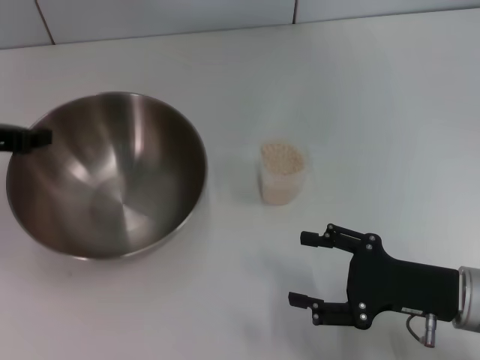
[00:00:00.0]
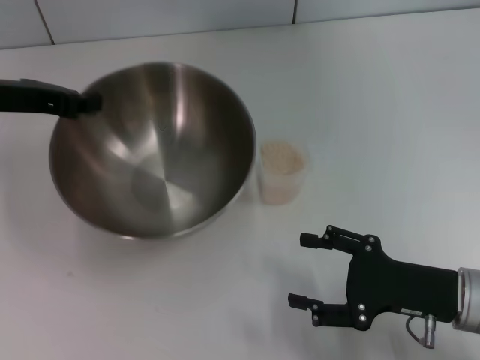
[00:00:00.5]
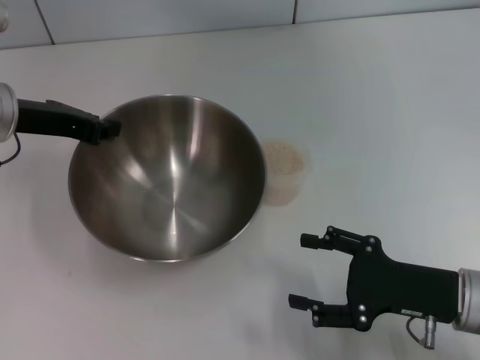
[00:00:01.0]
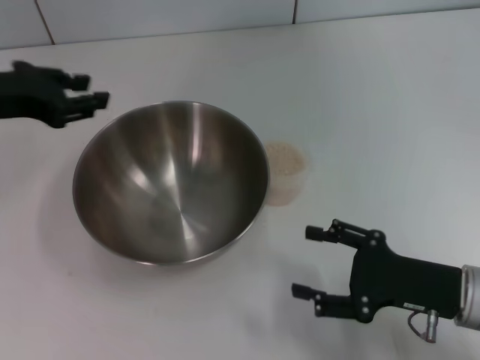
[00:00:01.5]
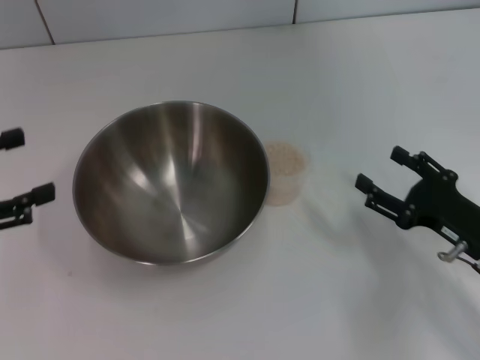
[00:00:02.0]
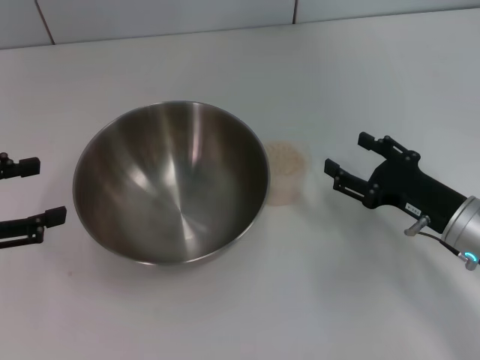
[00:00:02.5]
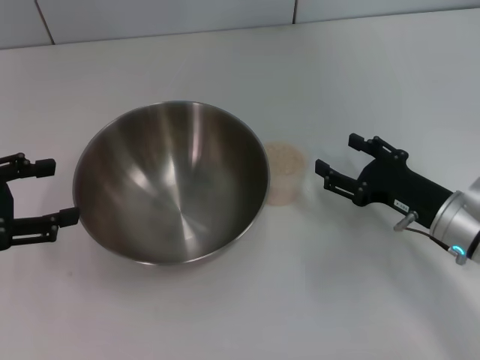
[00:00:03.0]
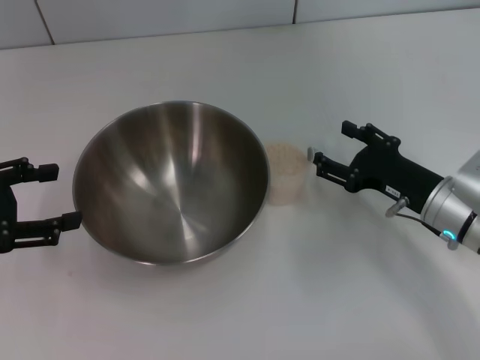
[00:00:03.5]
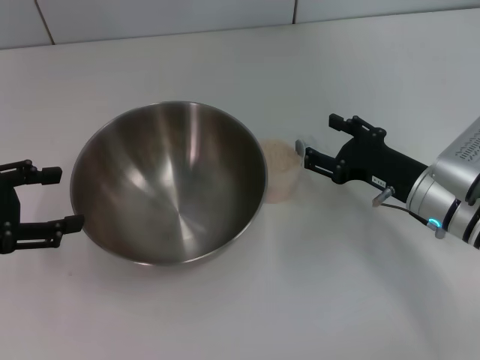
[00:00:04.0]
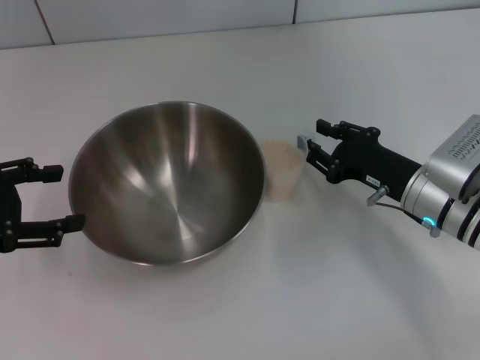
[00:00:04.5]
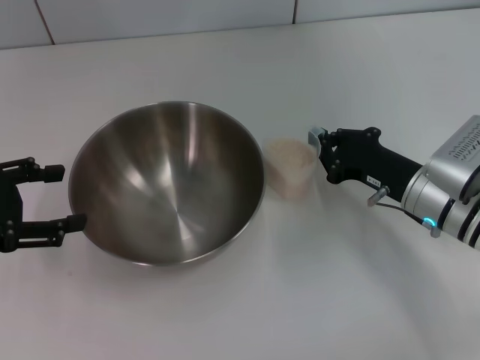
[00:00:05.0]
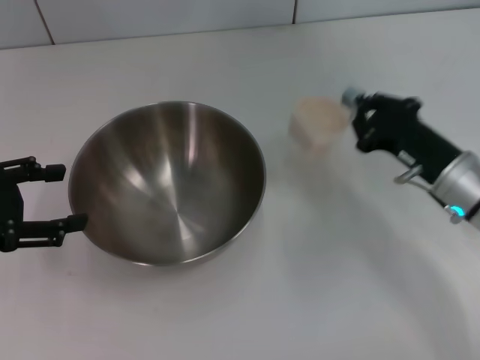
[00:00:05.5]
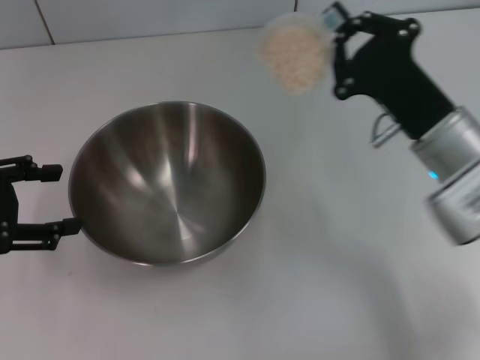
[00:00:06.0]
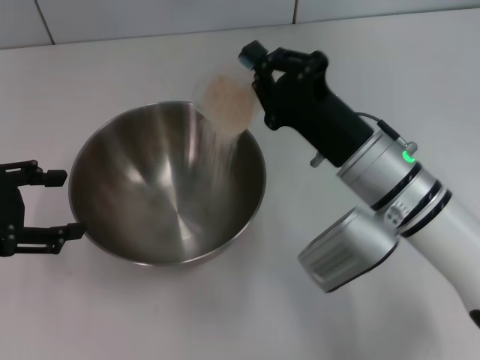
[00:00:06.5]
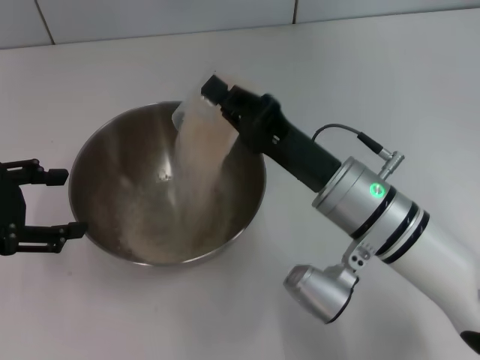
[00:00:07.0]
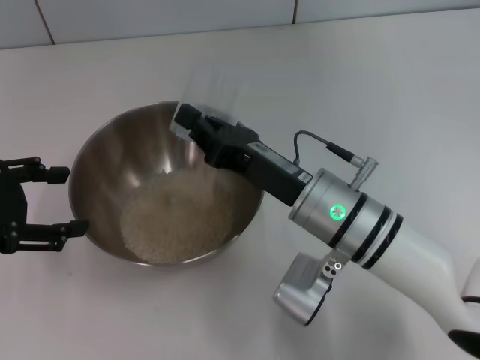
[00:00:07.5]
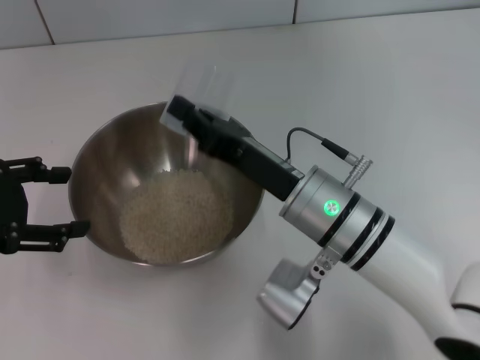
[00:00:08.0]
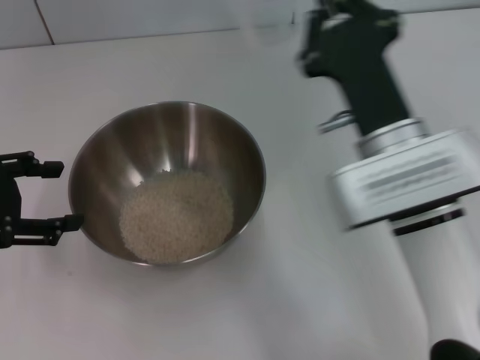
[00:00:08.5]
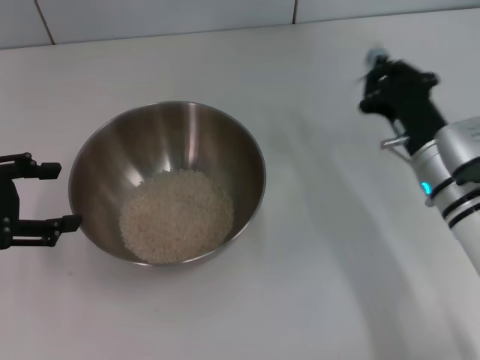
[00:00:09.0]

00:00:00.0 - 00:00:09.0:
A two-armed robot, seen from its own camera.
Task of the whole recording: Place the bowl in the middle of the table with one hand and pour the rice from the grain cup into it with the other hand.
Step, 00:00:00.5 - 00:00:01.0: Place the bowl in the center of view with the left gripper.
Step, 00:00:01.5 - 00:00:05.5: Pick up the cup with rice in it with the right gripper.
Step, 00:00:06.0 - 00:00:08.0: Pour the rice from the cup into the bowl with the right gripper.
00:00:00.0 - 00:00:02.0: The left gripper shifts approximately 10 cm backward, and opens up.
00:00:02.0 - 00:00:04.5: The right gripper moves forward and to the left, roughly 10 cm.
00:00:04.5 - 00:00:07.0: The right gripper heads to the left, covering about 10 cm, and closes.
00:00:07.0 - 00:00:09.0: The right gripper goes some 10 cm to the right.

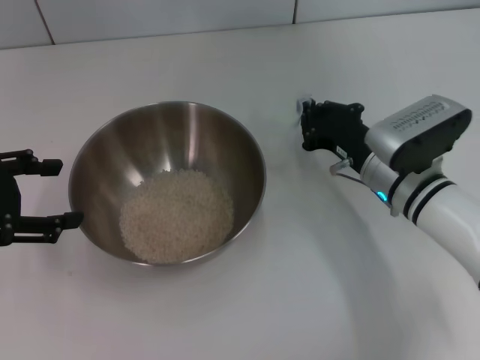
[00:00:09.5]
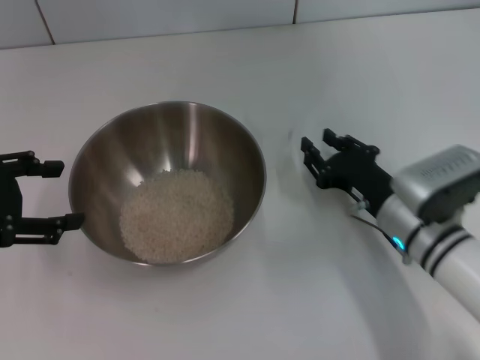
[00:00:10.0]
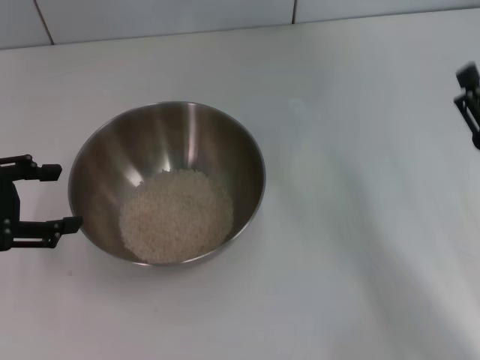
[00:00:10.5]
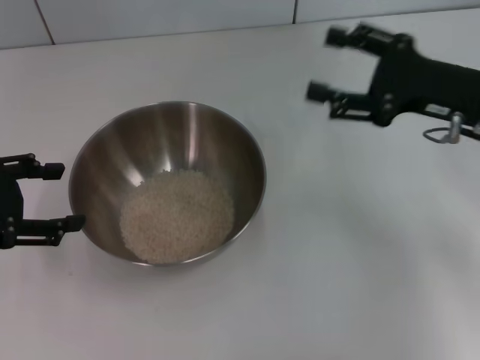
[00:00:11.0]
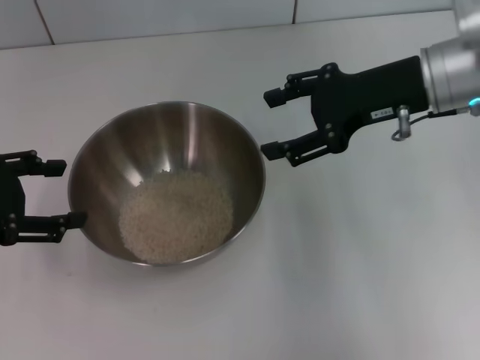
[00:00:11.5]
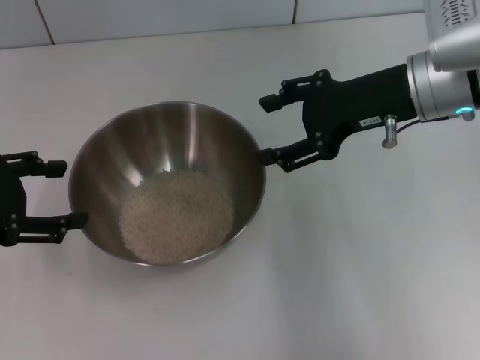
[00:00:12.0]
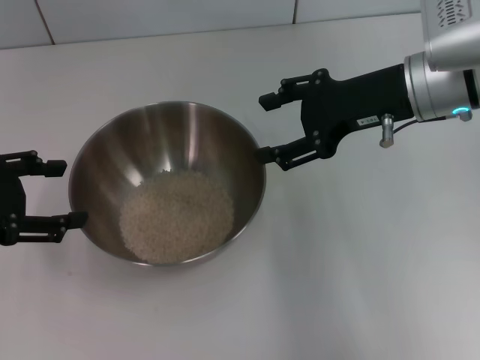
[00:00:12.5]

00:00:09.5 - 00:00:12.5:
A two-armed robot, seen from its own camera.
Task of the whole recording: Place the bowl in the middle of the table with one hand and pour the rice from the grain cup into it with the other hand.
00:00:09.5 - 00:00:11.0: The right gripper moves upward and to the right, about 15 cm, and opens up.
00:00:11.0 - 00:00:12.5: The right gripper moves to the left, approximately 5 cm.
